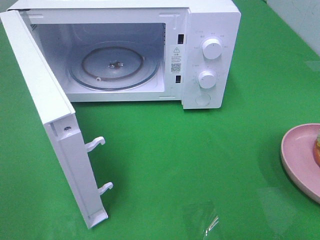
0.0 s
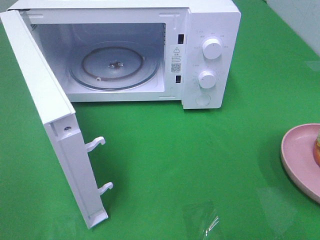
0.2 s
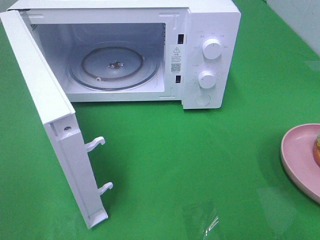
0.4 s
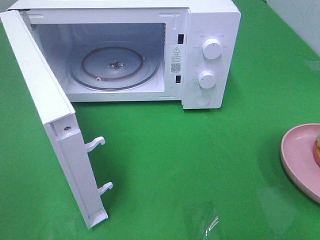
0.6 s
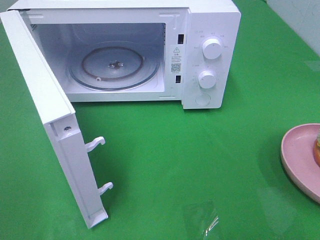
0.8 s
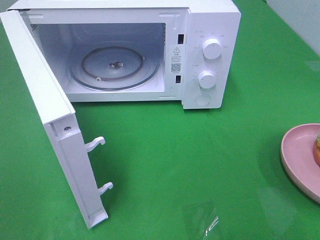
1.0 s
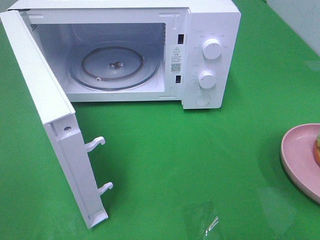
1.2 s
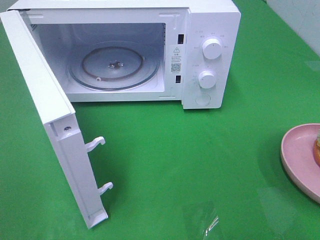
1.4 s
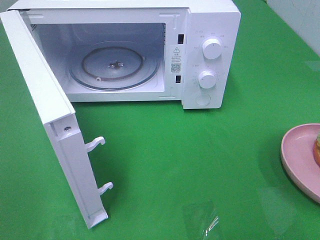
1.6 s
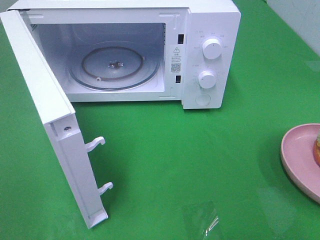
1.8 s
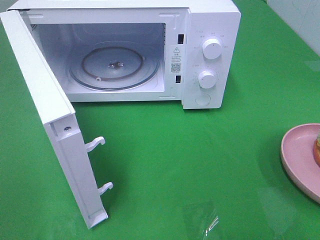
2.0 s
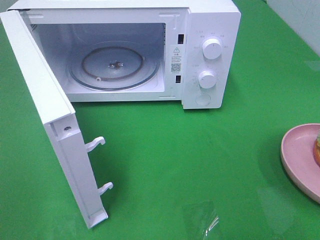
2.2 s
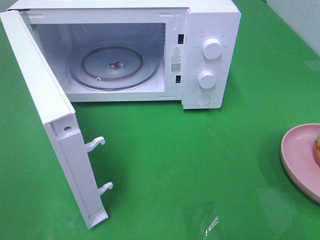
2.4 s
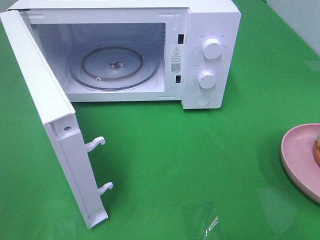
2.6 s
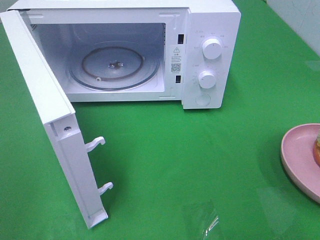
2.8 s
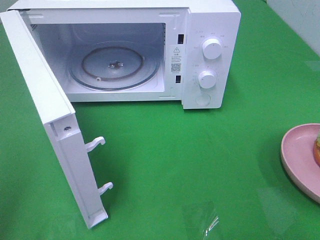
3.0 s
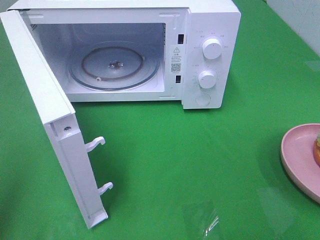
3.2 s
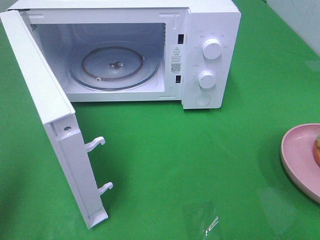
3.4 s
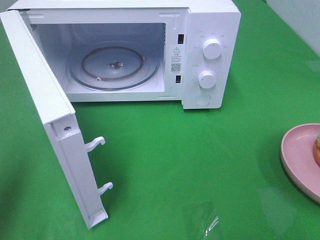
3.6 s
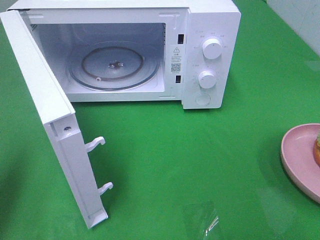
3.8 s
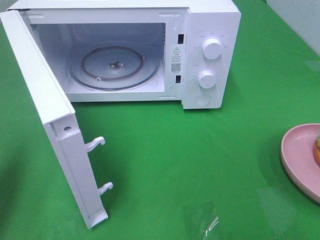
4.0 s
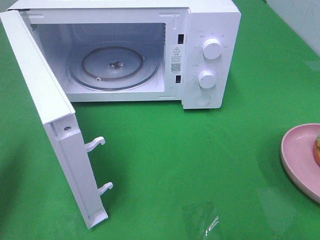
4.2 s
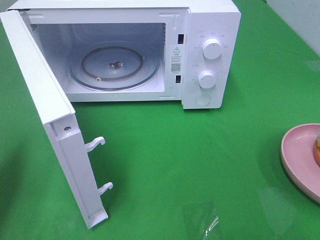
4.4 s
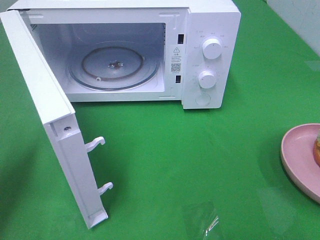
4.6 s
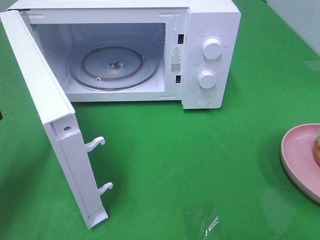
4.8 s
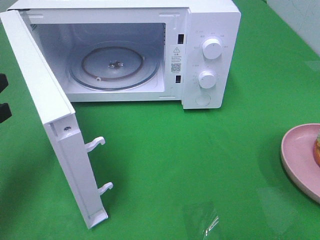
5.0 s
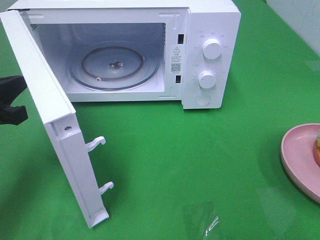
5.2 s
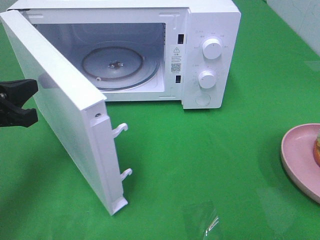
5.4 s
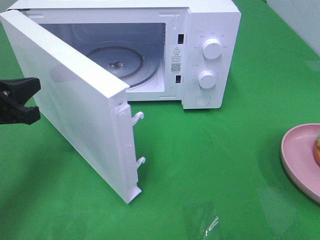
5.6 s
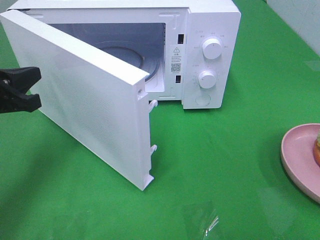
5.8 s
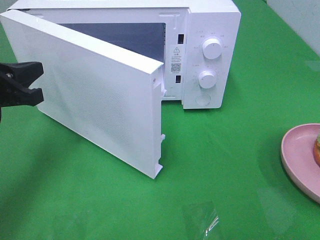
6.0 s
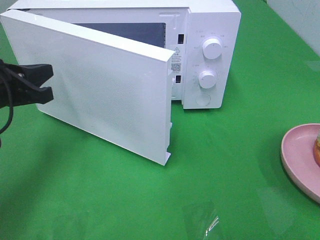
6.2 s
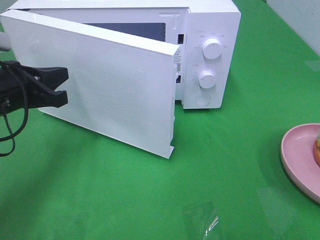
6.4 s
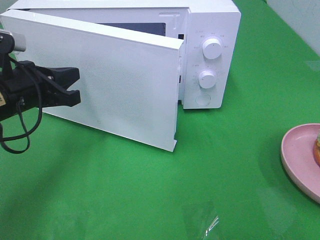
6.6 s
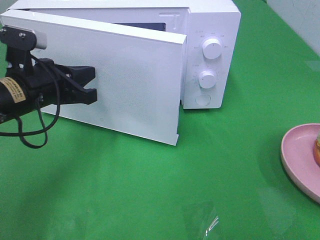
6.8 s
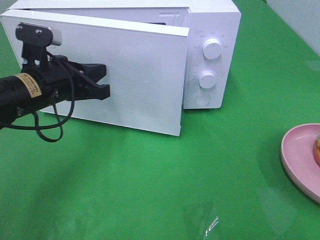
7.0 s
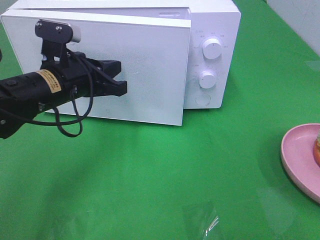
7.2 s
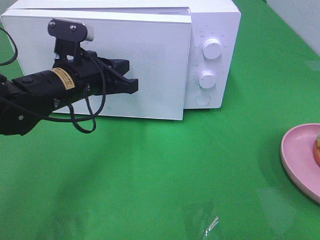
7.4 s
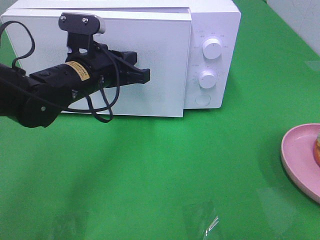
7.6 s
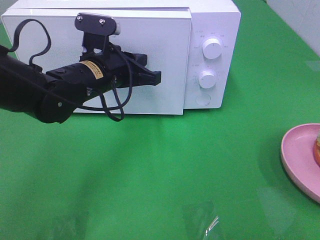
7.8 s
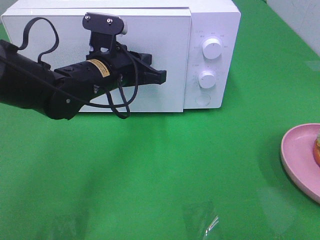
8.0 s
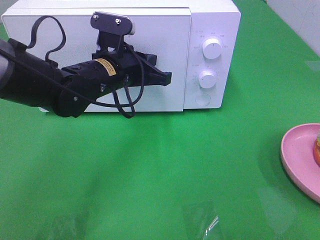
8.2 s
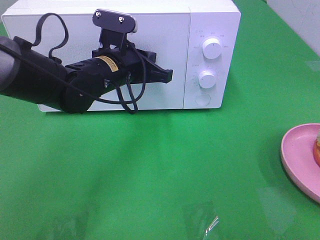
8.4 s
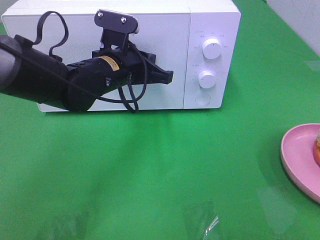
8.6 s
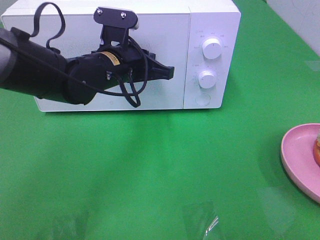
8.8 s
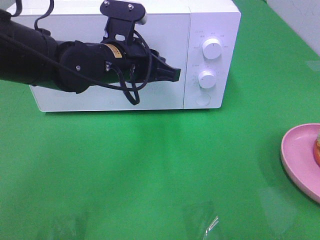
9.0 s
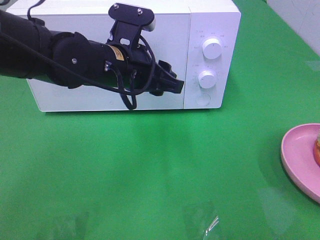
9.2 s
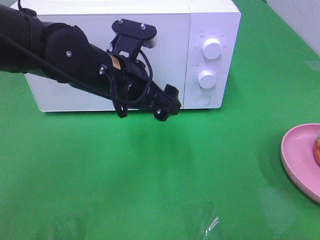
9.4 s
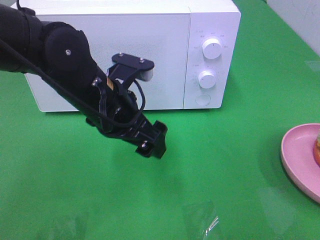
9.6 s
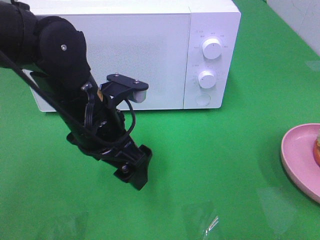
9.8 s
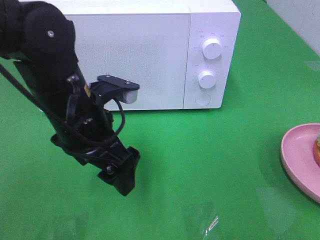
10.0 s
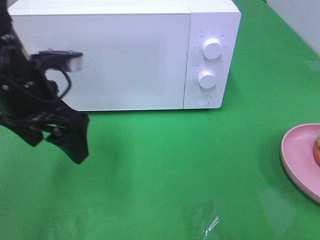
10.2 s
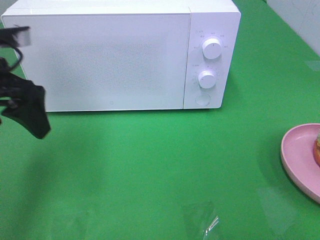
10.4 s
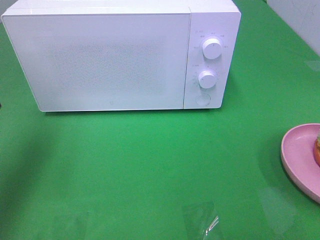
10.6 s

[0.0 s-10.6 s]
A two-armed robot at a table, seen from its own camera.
Task of the whole recording: Heat the burger.
Step, 0.0 to 9.0 s: Left hand: close the microwave door.
0.0 to 1.6 s: Both grippers stay put.
3.0 to 4.6 s: The left gripper heads forward and downward, covering approximately 20 cm.
4.6 to 6.0 s: The left gripper is displaced forward and to the right by about 10 cm.
6.0 to 7.6 s: The left gripper goes approximately 15 cm to the right and forward.
7.6 to 9.0 s: The left gripper goes roughly 5 cm to the right.
9.0 to 10.6 s: The left gripper heads to the left, covering some 25 cm, and opens its fingers.

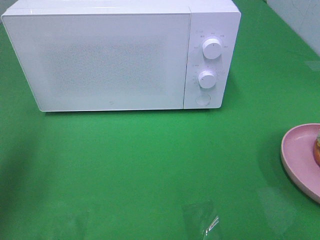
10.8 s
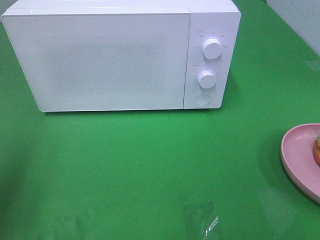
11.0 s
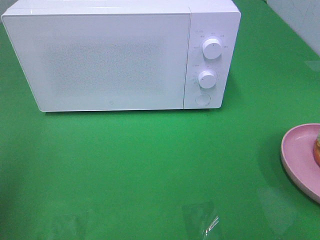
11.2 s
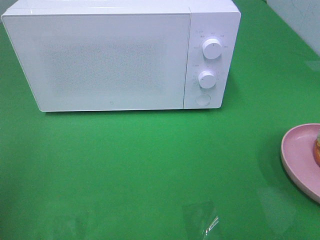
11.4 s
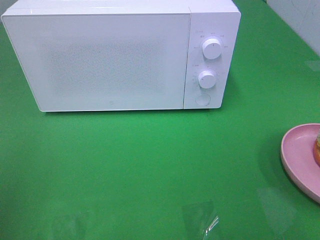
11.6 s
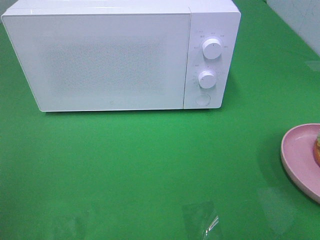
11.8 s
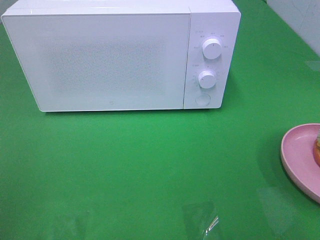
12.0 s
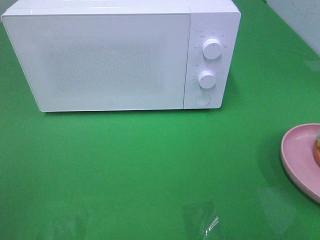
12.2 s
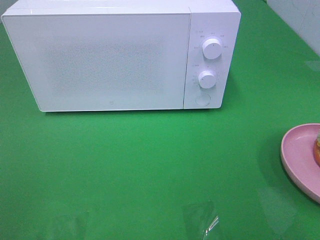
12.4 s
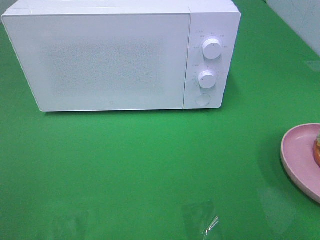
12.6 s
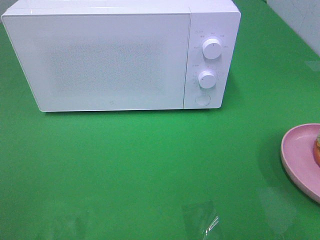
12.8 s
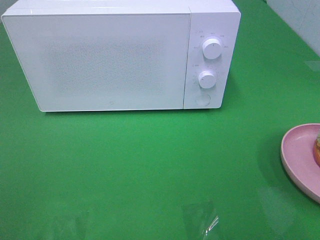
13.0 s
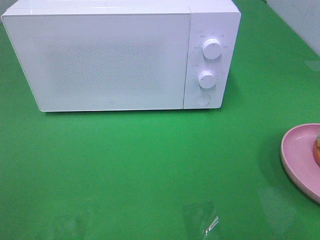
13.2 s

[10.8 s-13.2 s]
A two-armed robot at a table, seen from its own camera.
Task of the whole recording: Heat the burger.
10.8 to 12.0 s: The left gripper moves backward, approximately 20 cm.

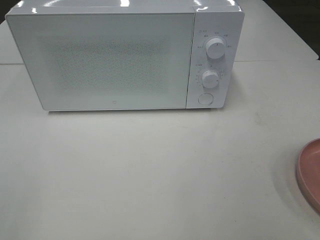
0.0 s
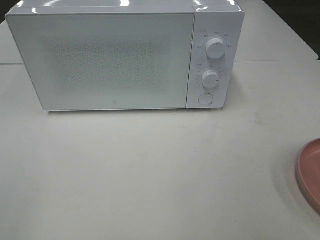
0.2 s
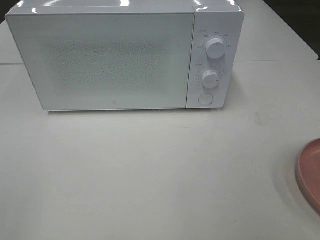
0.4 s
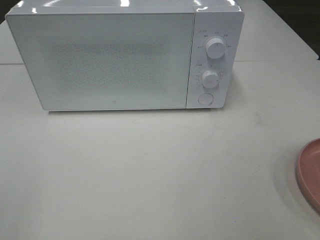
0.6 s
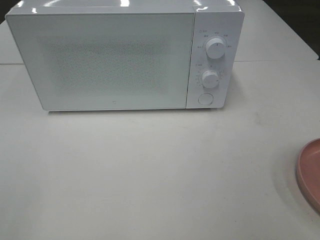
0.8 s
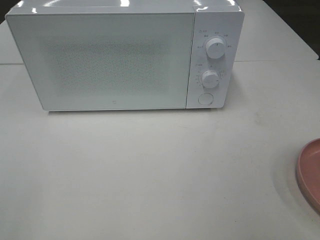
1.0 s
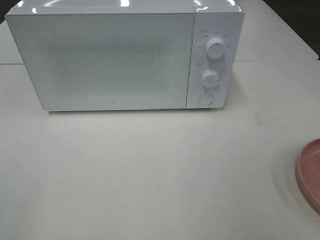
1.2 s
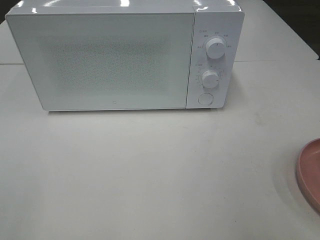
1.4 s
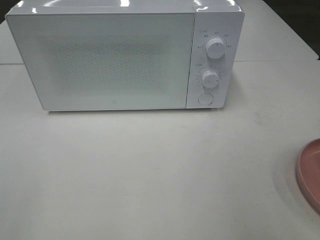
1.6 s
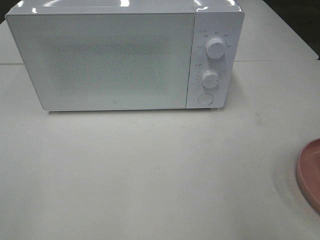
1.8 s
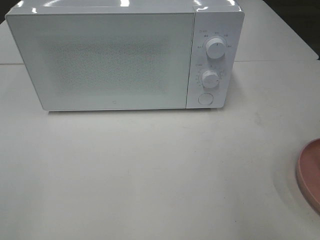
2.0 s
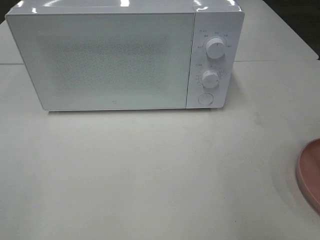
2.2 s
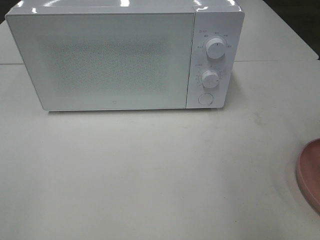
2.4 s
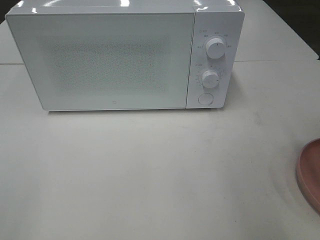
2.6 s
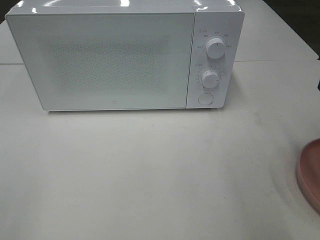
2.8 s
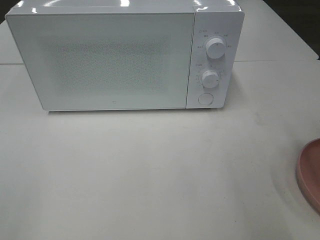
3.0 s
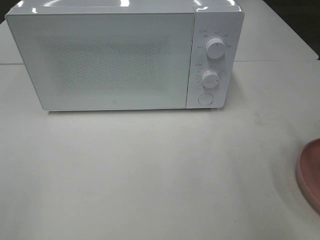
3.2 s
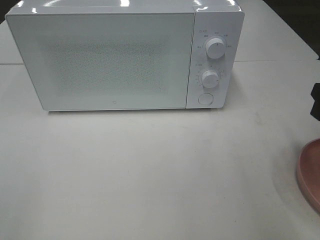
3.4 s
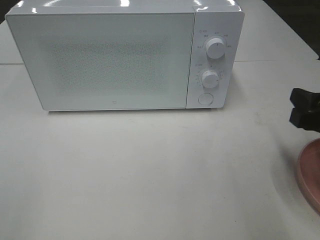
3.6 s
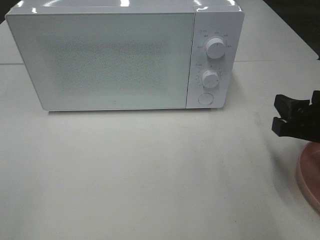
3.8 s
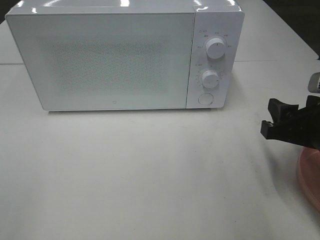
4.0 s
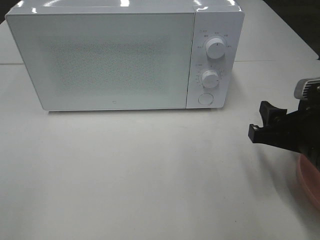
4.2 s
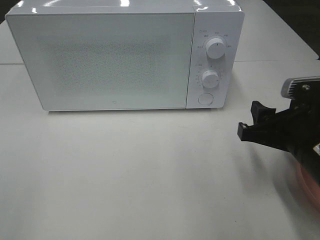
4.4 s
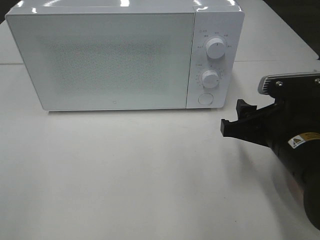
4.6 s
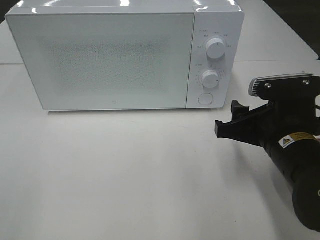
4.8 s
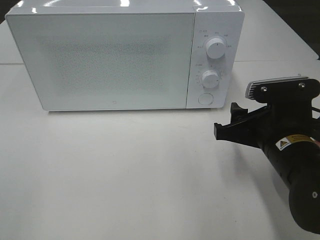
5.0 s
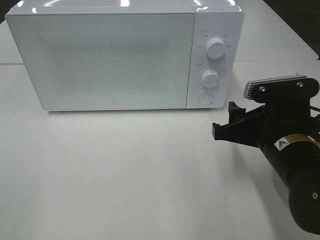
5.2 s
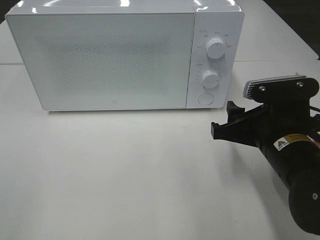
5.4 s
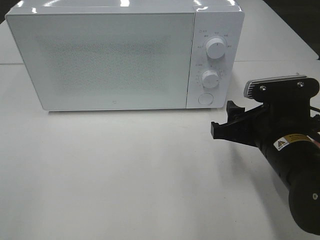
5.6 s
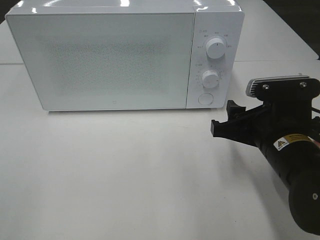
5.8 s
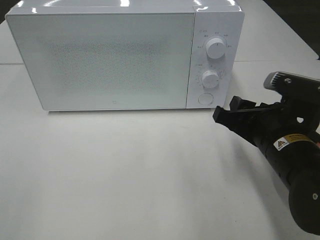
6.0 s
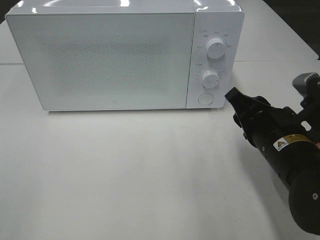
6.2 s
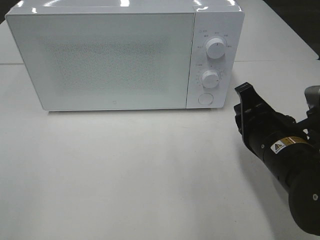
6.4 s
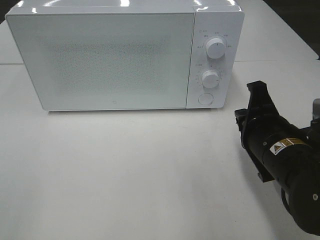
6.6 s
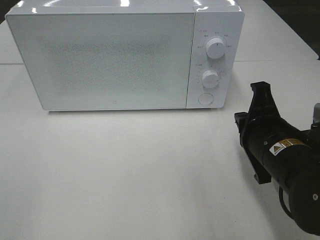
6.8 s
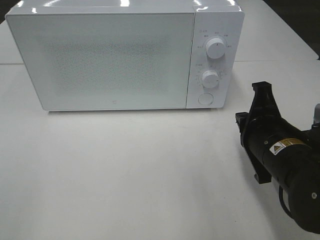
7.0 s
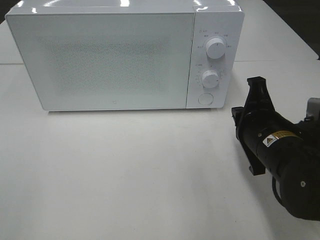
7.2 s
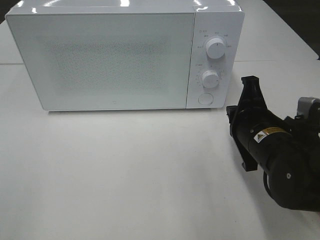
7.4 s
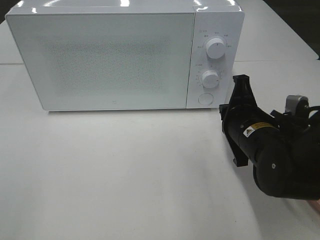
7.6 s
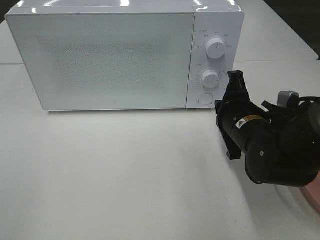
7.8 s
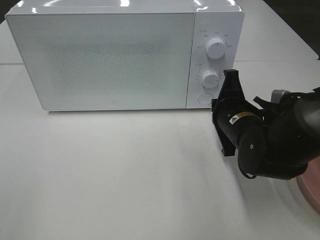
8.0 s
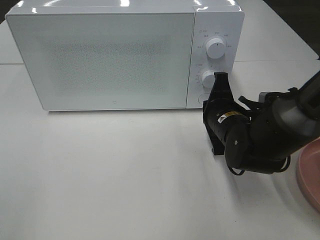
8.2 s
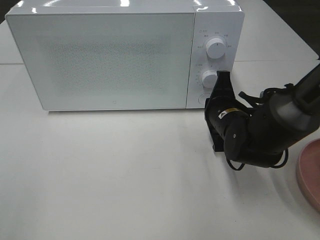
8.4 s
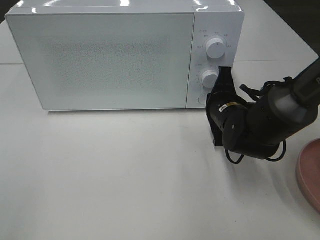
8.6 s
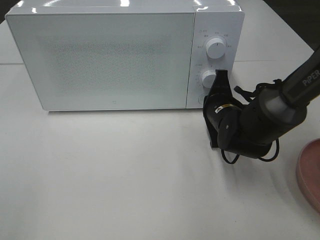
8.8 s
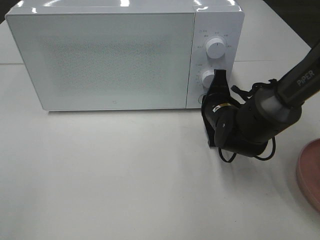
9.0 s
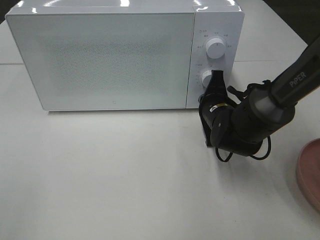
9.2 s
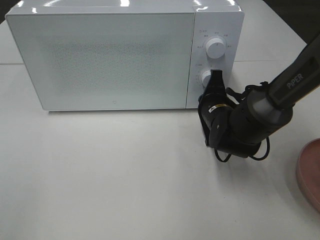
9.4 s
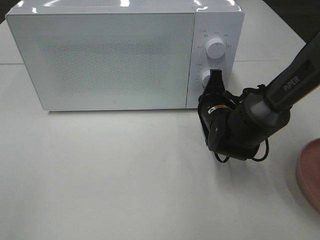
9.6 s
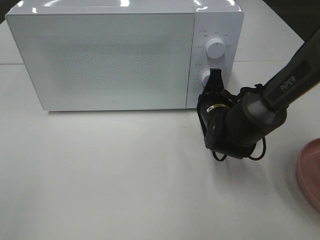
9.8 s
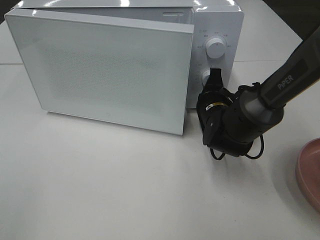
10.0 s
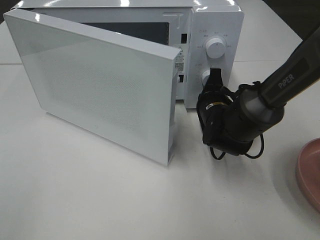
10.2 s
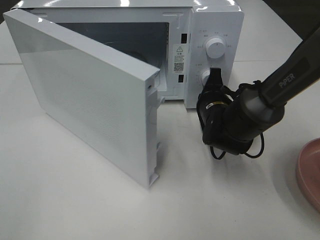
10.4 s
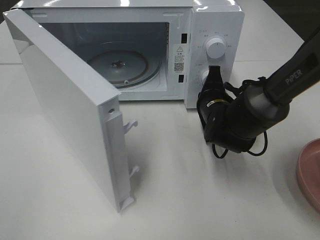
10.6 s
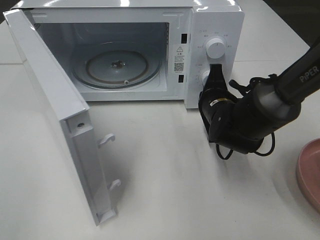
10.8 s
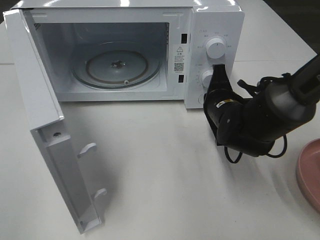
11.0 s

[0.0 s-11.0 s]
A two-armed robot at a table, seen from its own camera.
Task of the whole recording: Heat the burger.
Step, 0.0 to 10.8 s: Right hand: press the switch.
3.2 to 4.8 s: The right gripper goes about 15 cm to the left and downward.
6.2 to 7.8 s: The right gripper travels forward by about 5 cm, and closes.
7.8 to 9.4 s: The right gripper moves forward, roughly 5 cm.
